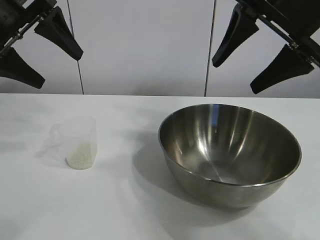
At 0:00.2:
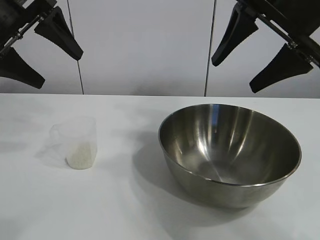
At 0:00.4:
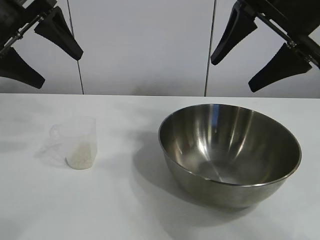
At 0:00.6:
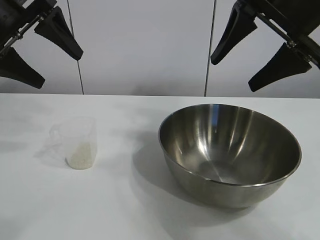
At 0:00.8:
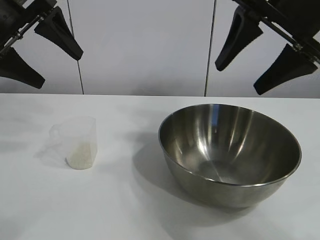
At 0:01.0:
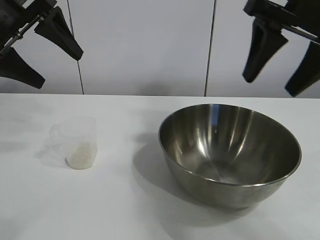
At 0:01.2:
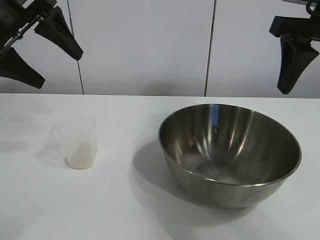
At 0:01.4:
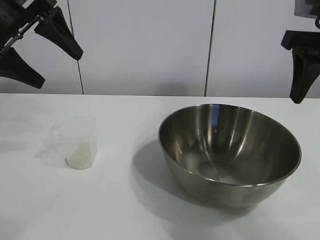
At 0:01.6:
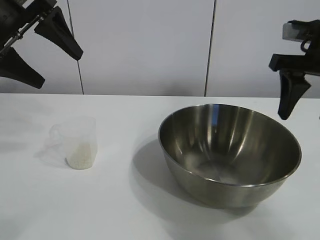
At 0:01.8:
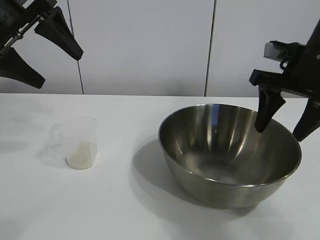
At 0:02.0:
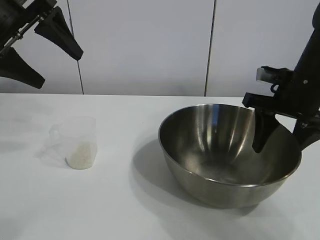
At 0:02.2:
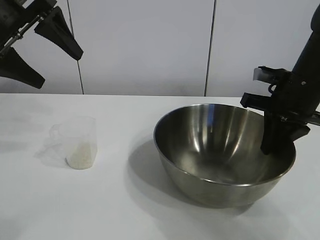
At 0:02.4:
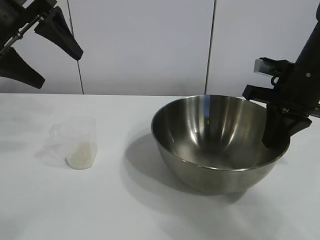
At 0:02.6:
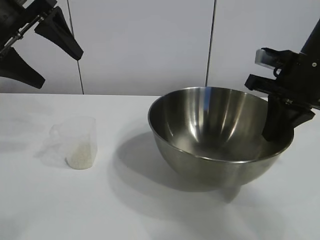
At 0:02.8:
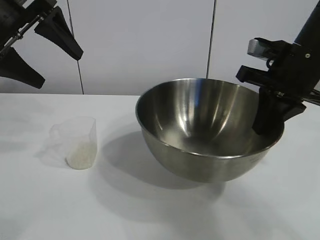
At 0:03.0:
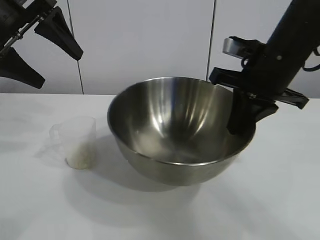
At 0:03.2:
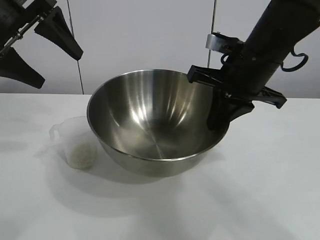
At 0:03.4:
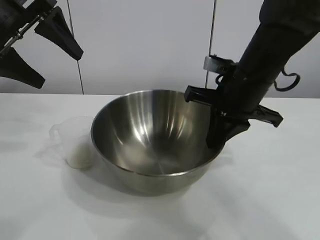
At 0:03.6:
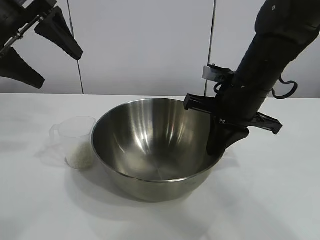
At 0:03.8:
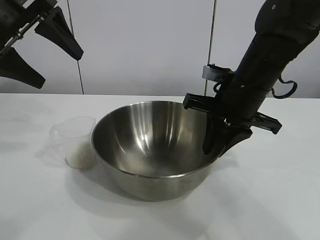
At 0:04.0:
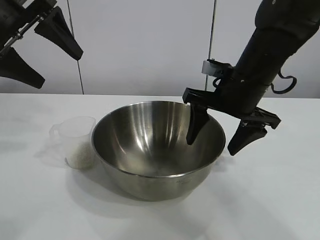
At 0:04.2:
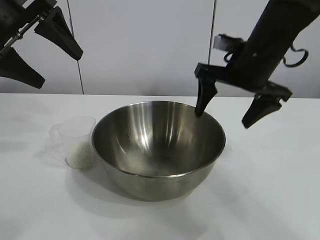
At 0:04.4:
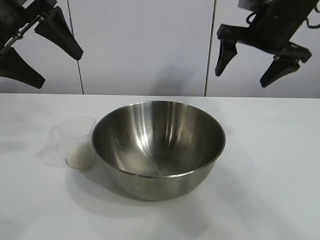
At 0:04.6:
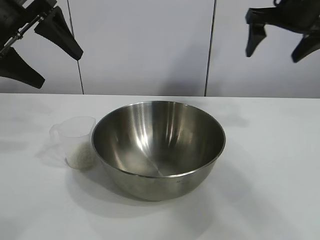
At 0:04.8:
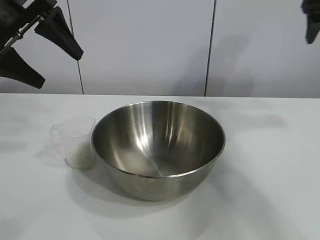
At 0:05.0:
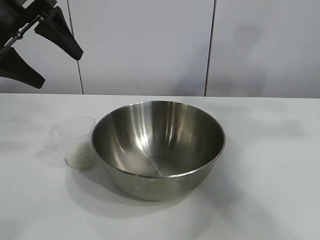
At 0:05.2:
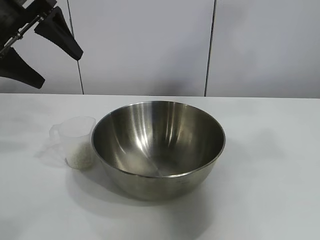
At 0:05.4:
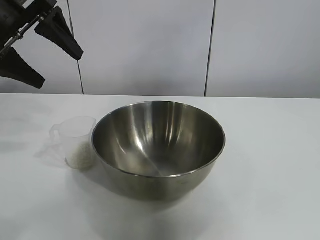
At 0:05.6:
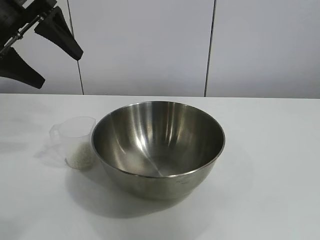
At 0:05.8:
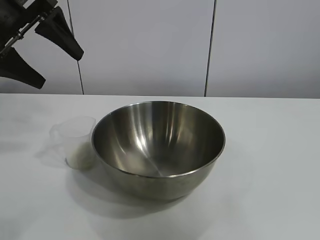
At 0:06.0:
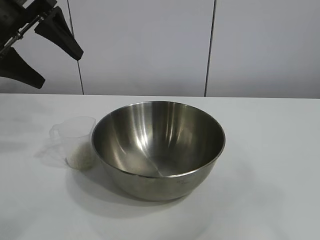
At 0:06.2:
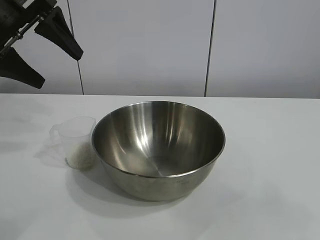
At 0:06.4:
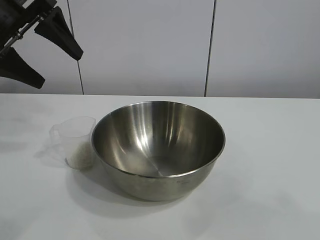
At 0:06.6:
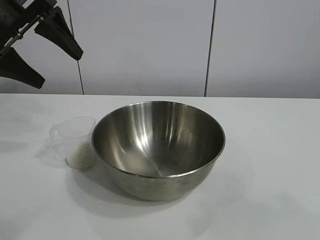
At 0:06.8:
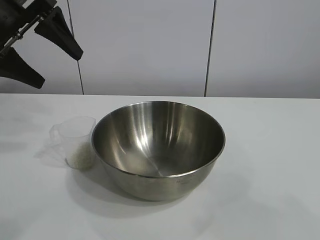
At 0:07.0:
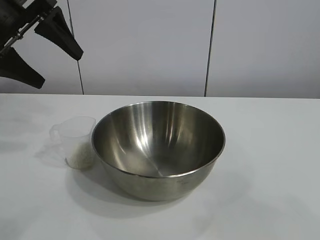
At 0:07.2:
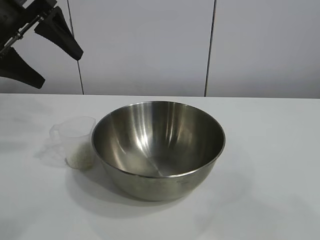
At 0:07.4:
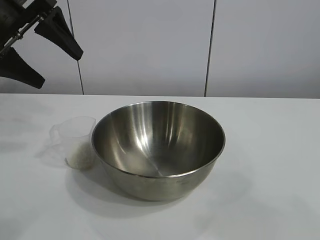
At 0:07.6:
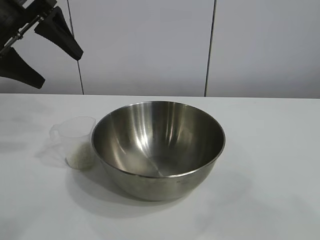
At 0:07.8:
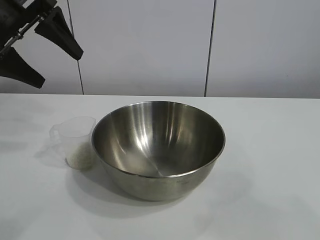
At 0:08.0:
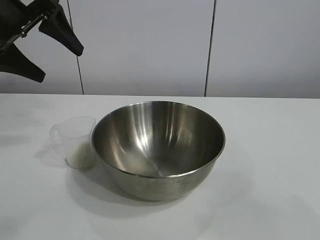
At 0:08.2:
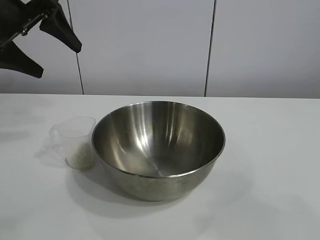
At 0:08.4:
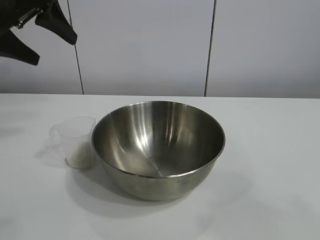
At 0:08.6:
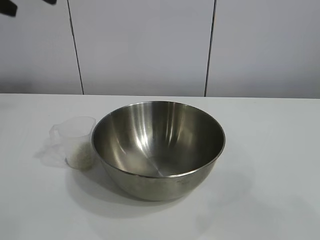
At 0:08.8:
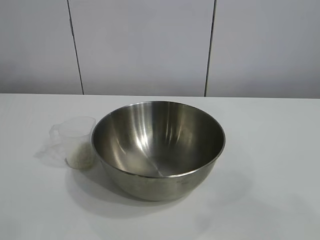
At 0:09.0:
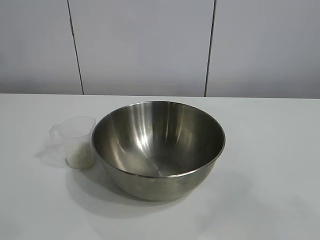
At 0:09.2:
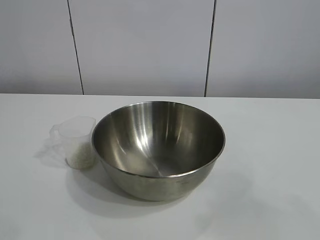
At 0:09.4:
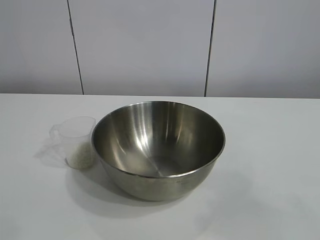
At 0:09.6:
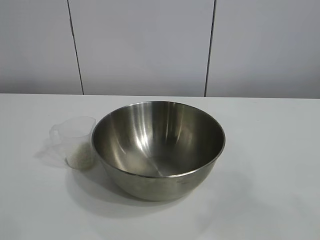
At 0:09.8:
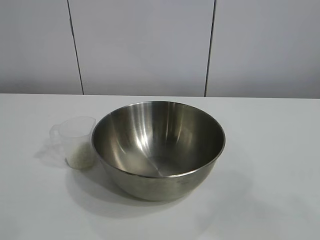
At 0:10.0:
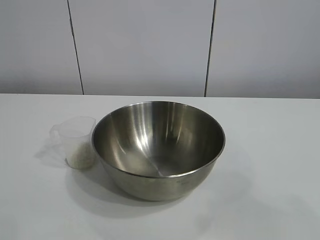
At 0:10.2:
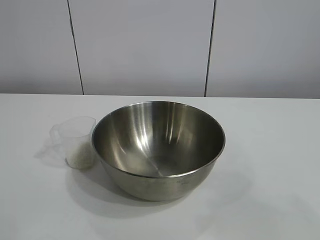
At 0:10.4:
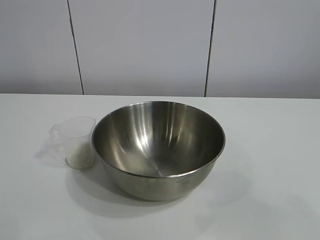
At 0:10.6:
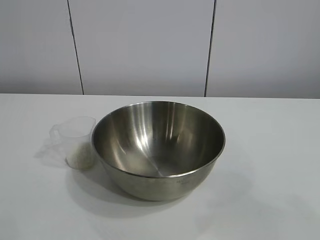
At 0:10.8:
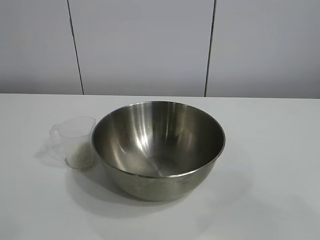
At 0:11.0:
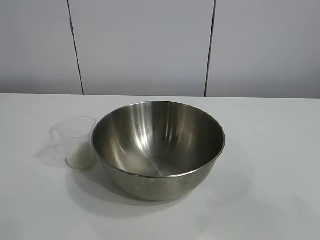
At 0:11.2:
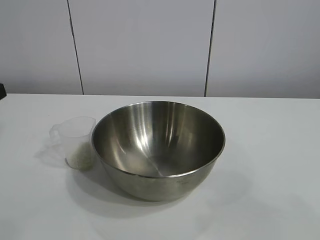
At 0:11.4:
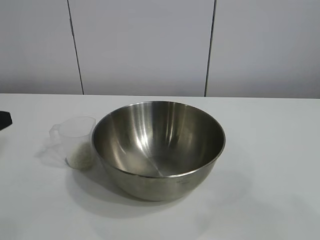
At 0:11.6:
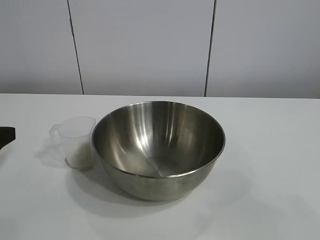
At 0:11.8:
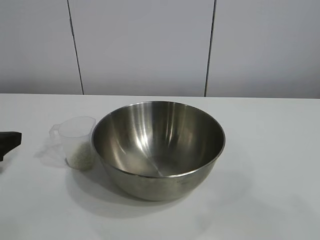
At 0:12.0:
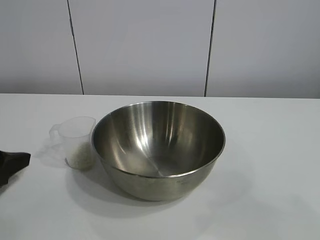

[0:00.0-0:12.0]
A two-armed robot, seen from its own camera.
Task of the whole recording: the right gripper grasp the rice container and place it in the center of the table, the left gripper grasp the rice scoop and pour the rice into the rice container.
Step, 0:00.6 to 0:03.8: Move the bowl in the center of view with right gripper.

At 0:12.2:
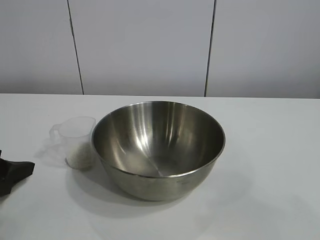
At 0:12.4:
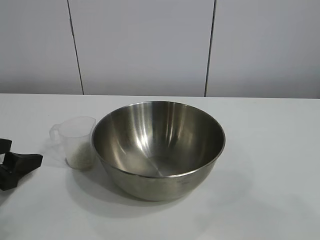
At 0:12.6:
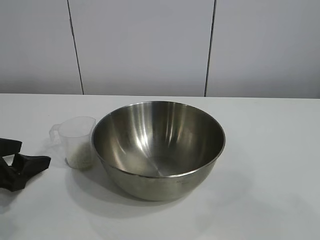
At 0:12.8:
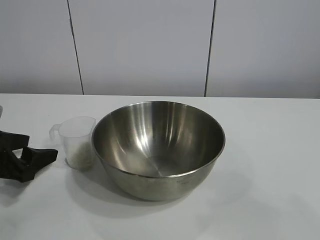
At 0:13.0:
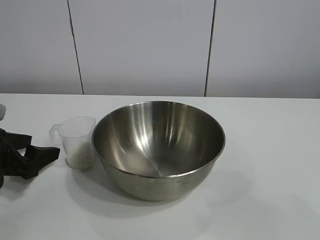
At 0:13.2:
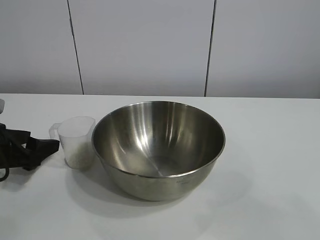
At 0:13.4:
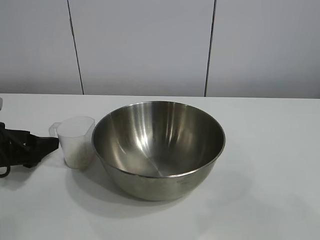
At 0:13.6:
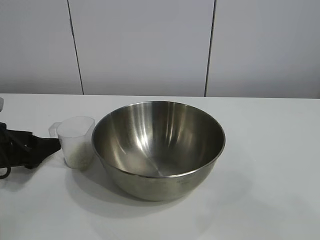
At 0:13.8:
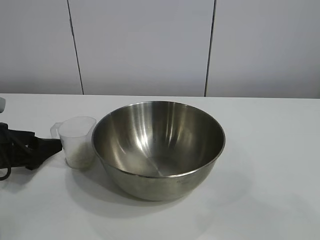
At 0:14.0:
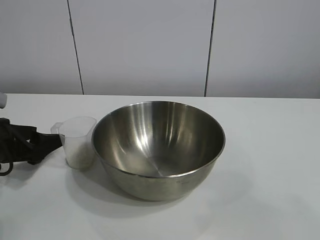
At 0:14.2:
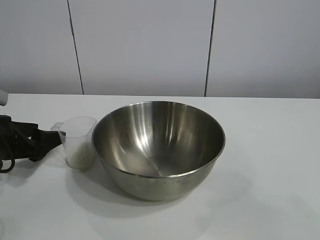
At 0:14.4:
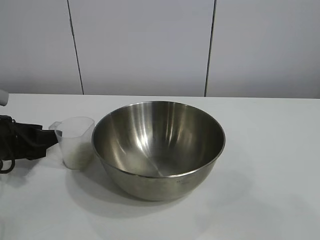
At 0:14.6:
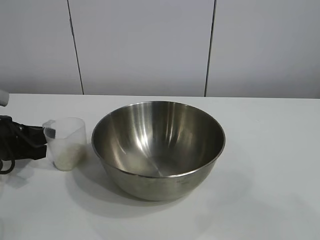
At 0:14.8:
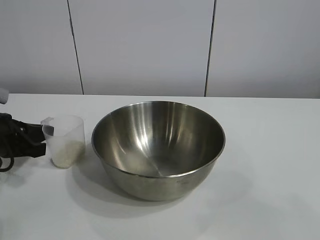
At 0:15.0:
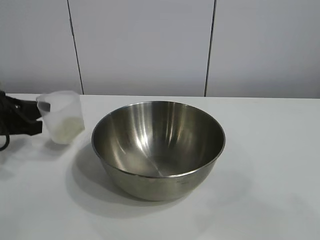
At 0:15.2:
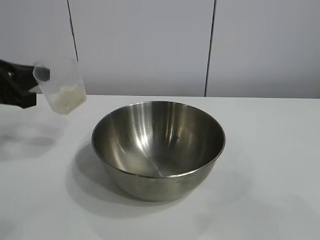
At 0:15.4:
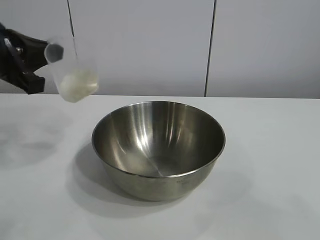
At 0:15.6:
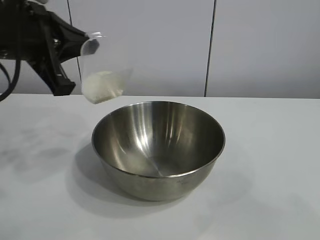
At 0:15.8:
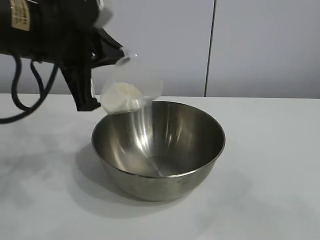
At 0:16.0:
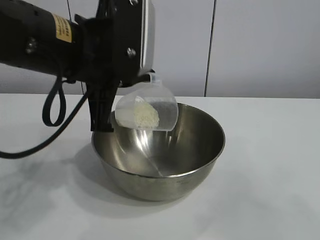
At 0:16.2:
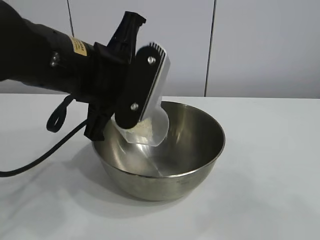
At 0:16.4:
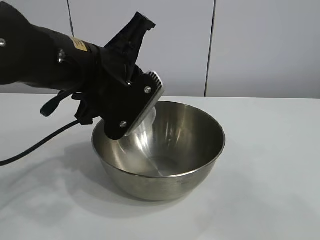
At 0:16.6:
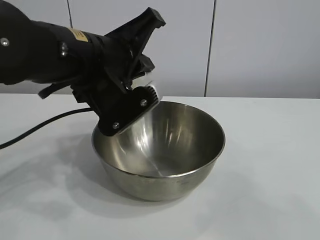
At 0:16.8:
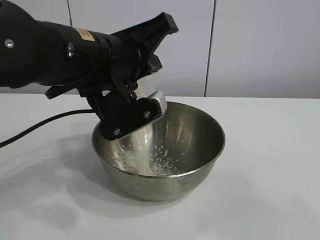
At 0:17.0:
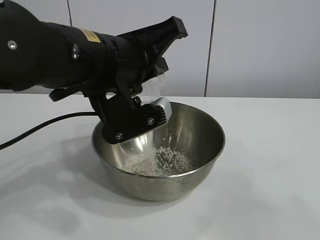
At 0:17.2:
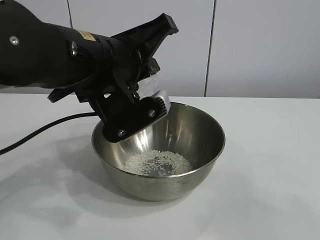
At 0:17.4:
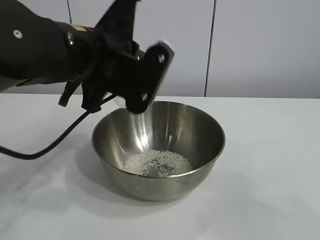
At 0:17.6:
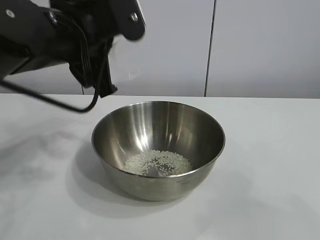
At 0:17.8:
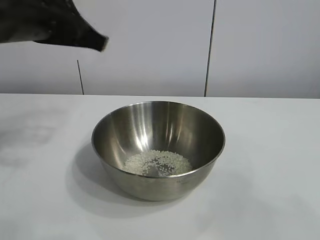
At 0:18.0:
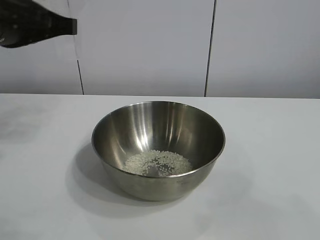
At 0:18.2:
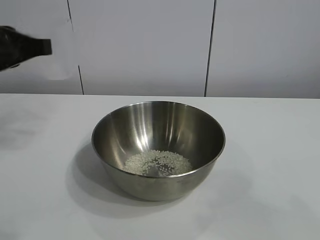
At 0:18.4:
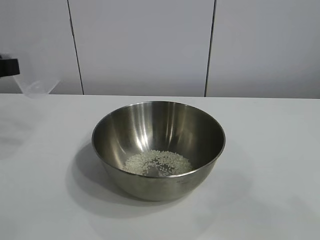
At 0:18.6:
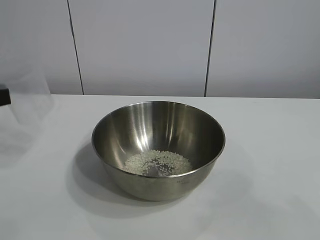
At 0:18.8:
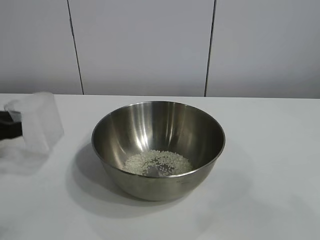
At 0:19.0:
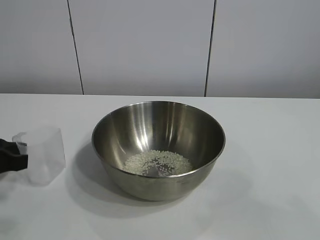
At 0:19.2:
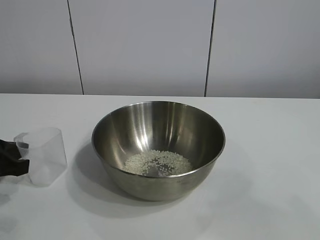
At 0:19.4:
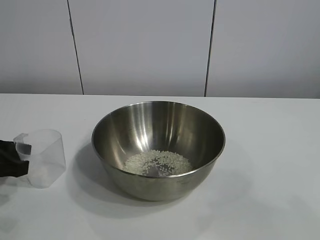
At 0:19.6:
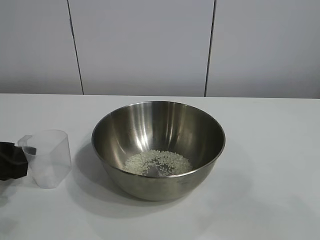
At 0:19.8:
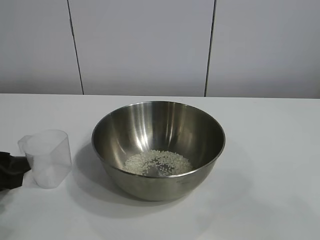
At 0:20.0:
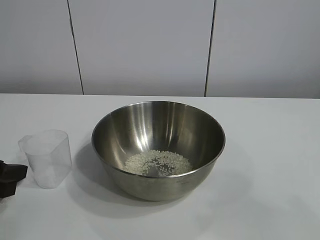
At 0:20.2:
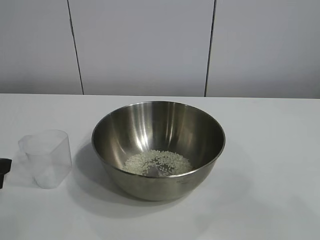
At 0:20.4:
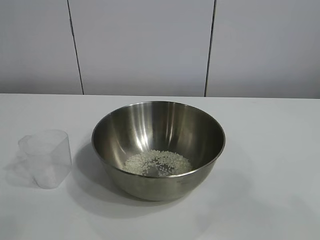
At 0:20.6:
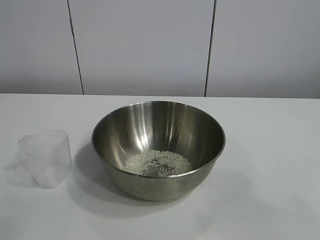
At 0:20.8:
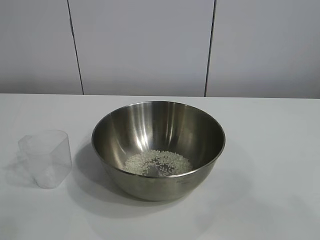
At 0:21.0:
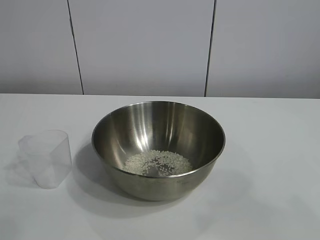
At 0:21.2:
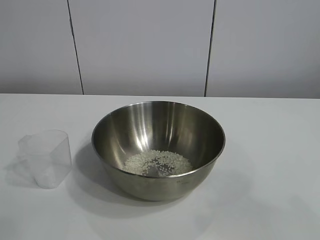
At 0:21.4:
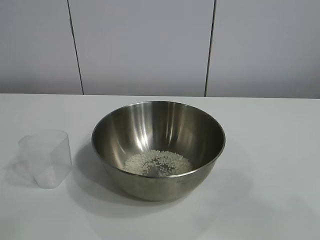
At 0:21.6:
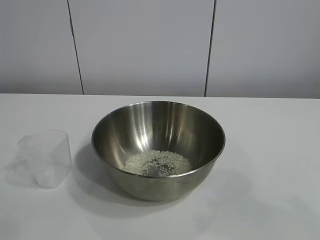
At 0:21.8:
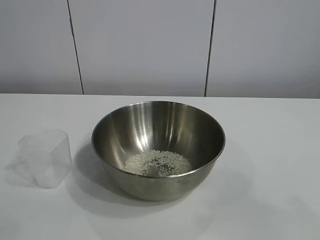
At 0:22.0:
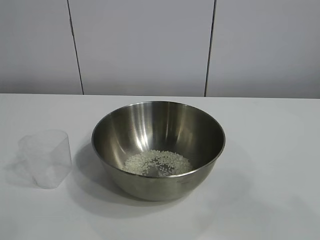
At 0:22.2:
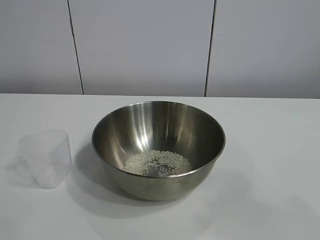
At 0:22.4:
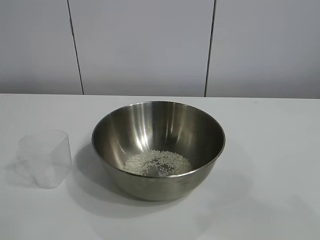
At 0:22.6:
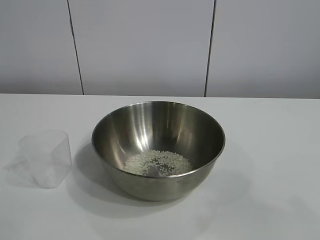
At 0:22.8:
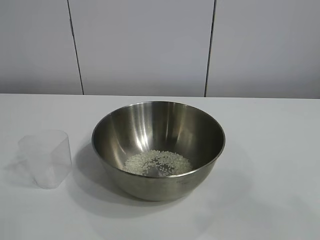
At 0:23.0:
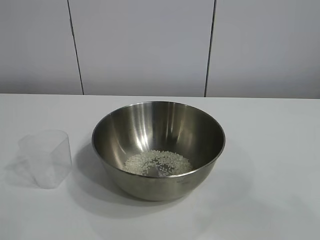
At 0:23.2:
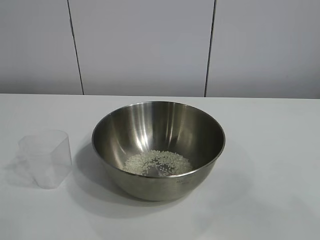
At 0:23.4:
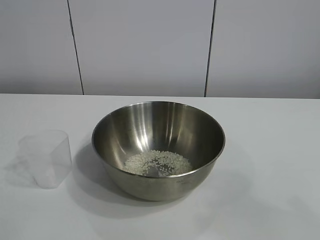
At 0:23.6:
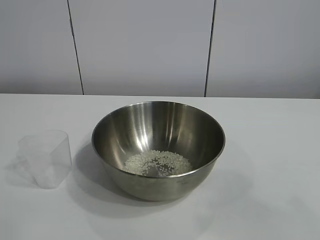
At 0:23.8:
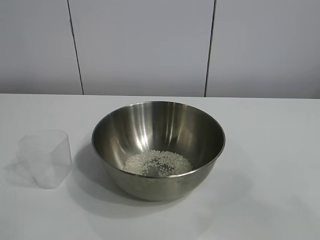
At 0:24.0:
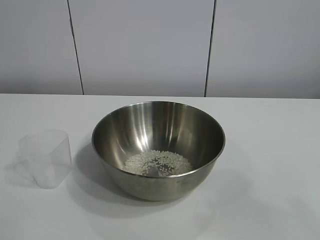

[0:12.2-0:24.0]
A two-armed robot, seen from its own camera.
Task of the whole recording: the right gripper grasp the rice container and place it in the center of the table, the left gripper grasp the rice scoop and pour the rice into the rice container.
Step, 0:12.2 to 0:14.6: Grasp the cup with rice in it with left gripper.
Step, 0:14.8 to 0:17.2: Pour the rice from the cup into the bowl with the left gripper.
Step, 0:17.4 to 0:19.4: Place the cup on the table with the left gripper.
